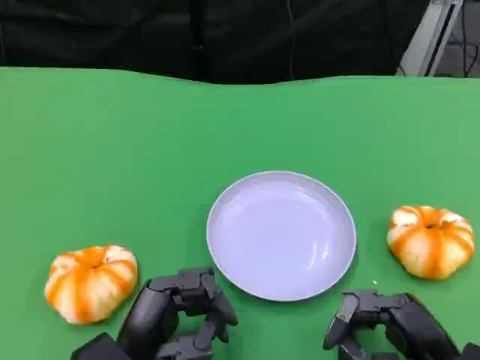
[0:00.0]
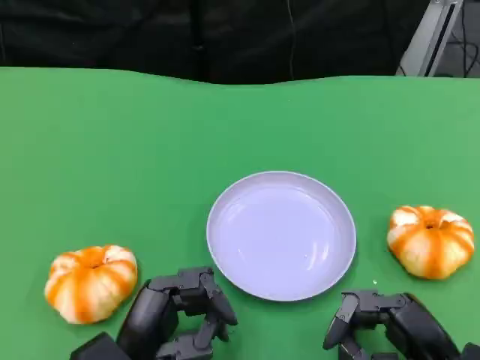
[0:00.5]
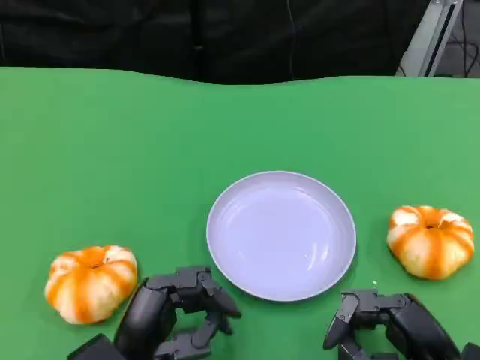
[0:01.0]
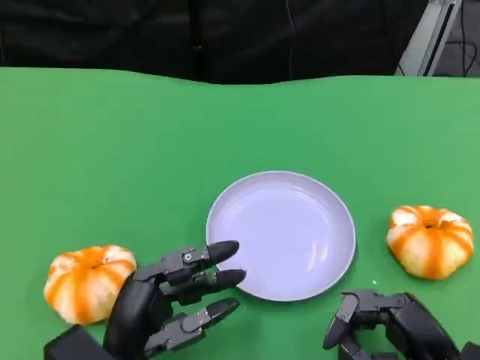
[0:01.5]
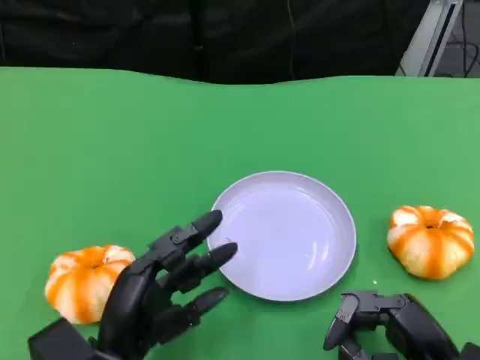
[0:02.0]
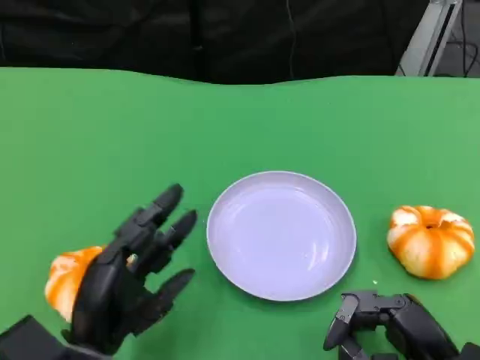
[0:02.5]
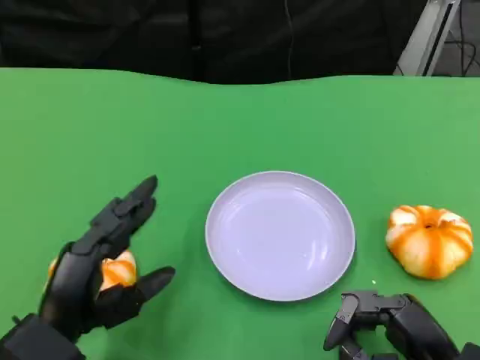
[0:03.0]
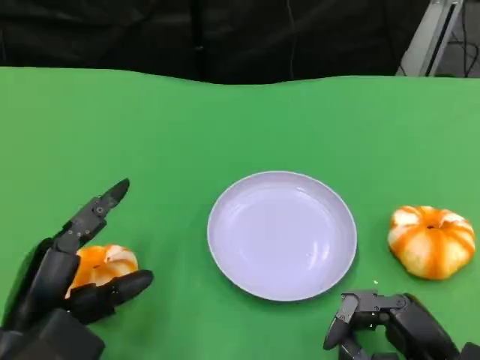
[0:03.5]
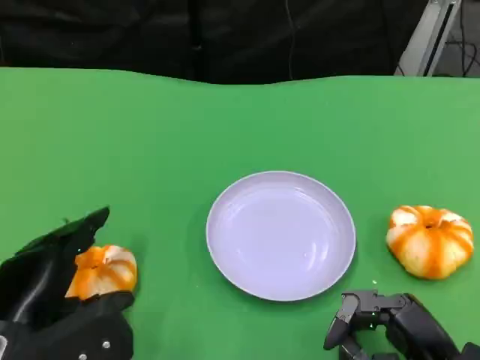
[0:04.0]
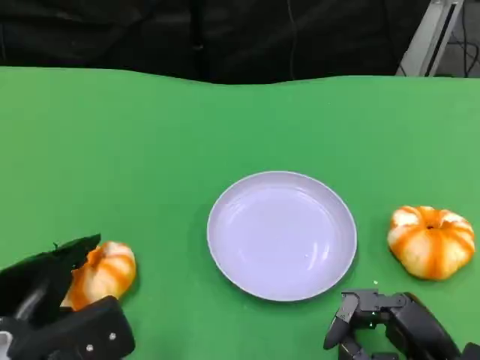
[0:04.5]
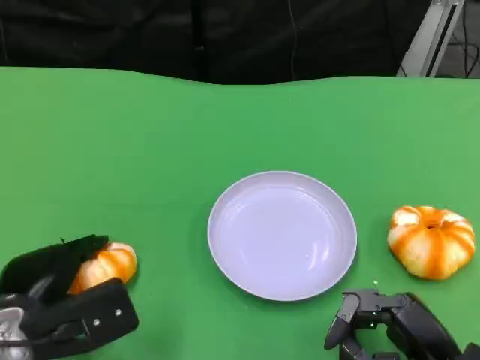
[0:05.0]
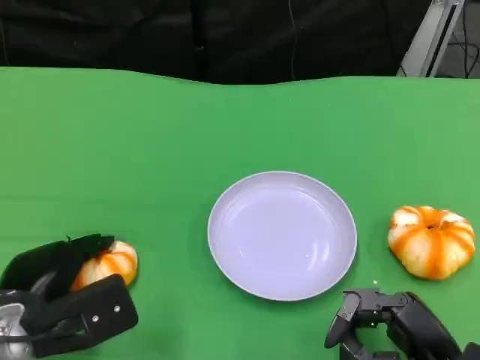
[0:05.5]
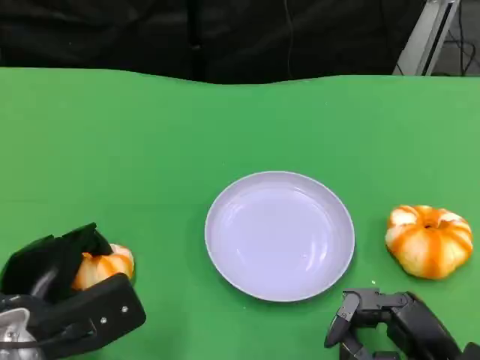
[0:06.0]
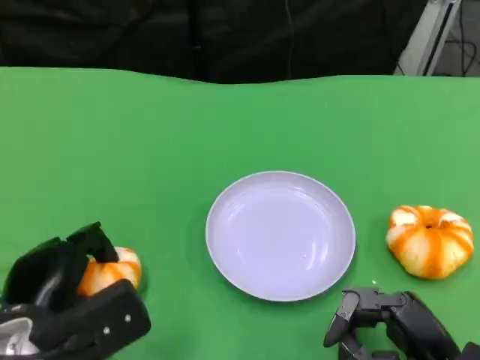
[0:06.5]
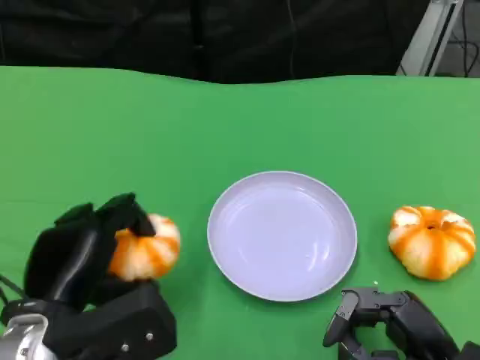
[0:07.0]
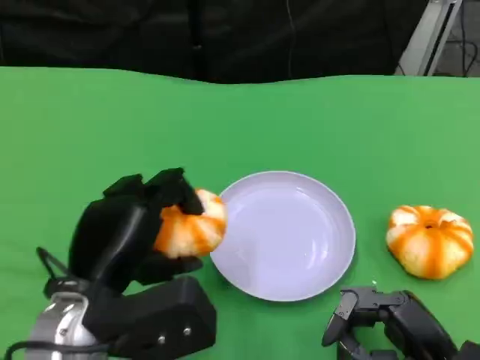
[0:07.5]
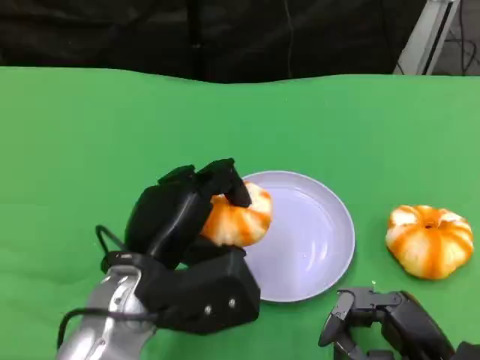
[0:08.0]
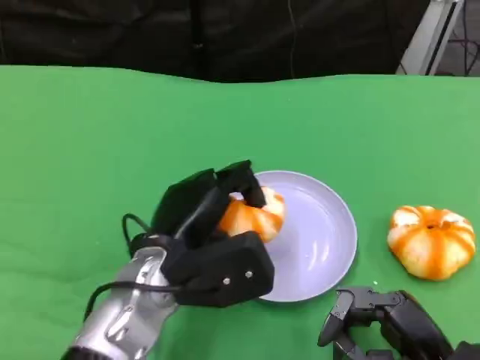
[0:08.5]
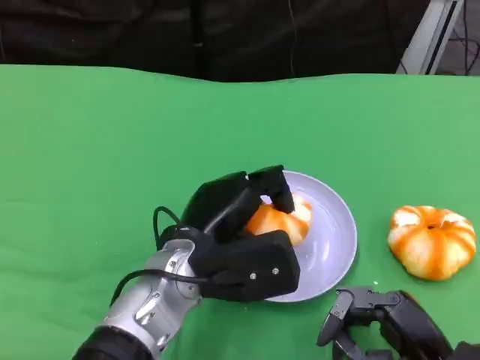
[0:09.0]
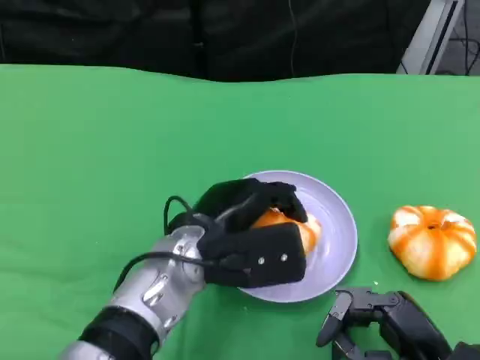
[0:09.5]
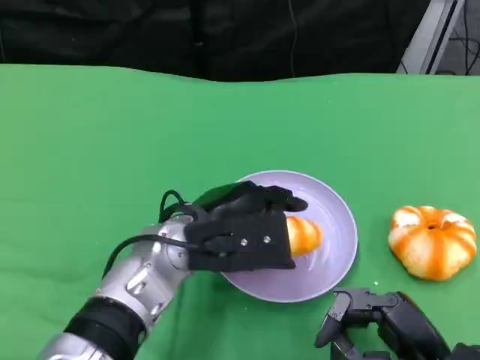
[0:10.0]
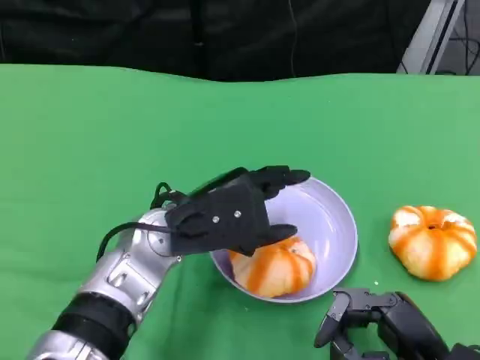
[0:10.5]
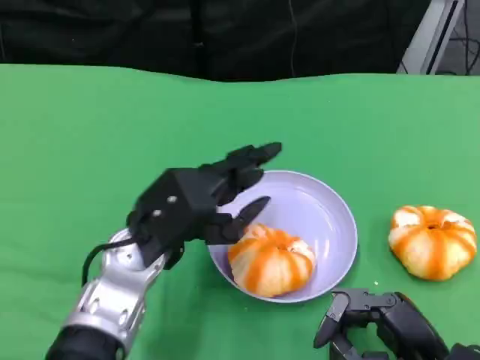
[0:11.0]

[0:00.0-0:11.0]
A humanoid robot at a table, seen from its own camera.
Task of the whole recording: Grasp the bread from the table and place it into the plate.
0:00.0 to 0:02.0: The hands move only a little.
0:02.0 to 0:03.5: The left hand heads to the left, covering roughly 5 cm.
0:05.5 to 0:07.5: The left hand heads to the right and upward, covering some 10 cm.
0:07.5 to 0:09.0: The left hand is displaced to the right and forward by about 10 cm.
0:09.0 to 0:11.0: The left hand shifts roughly 5 cm to the left.

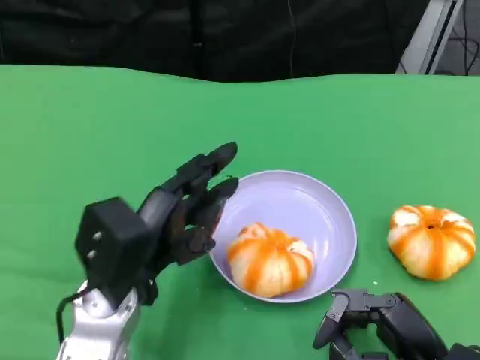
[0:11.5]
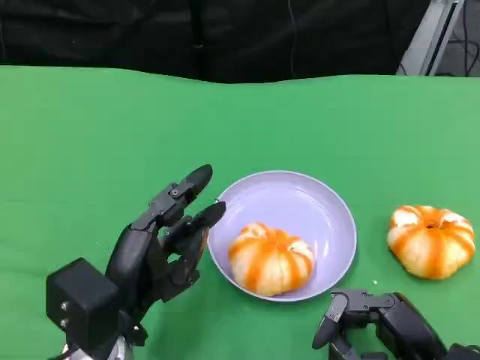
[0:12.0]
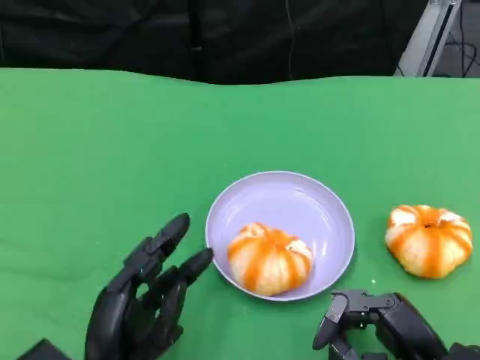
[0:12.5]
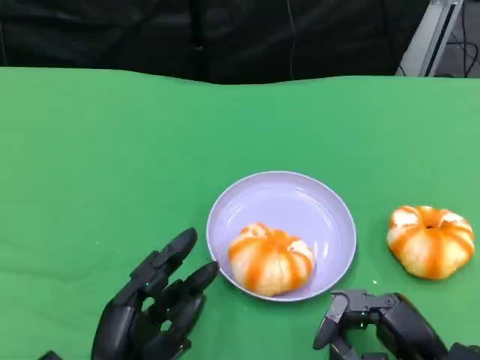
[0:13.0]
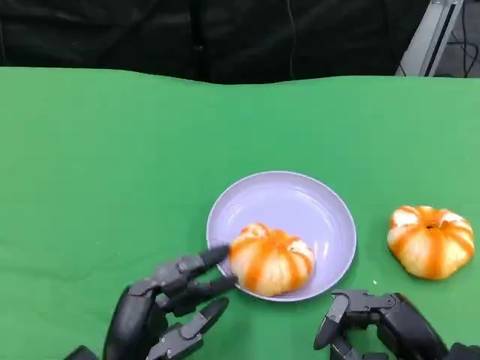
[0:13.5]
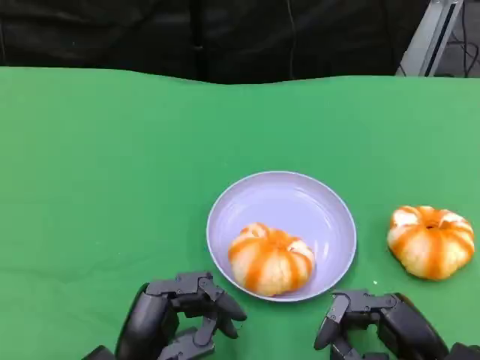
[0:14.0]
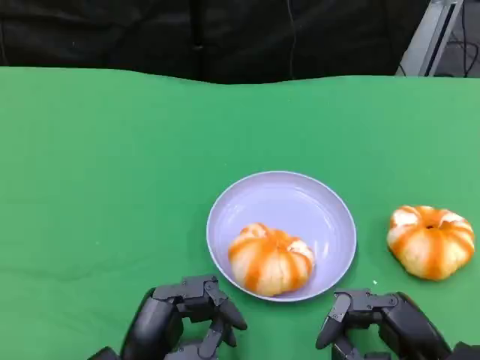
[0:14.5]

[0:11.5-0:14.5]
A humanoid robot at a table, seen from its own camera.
Task of the whole recording: Grasp the bread from the table and place it into the plate.
0:11.5 to 0:13.0: The left hand goes approximately 10 cm backward and downward.
0:13.0 to 0:14.5: The hands move only a little.

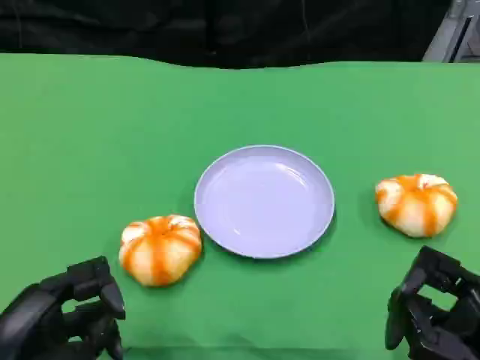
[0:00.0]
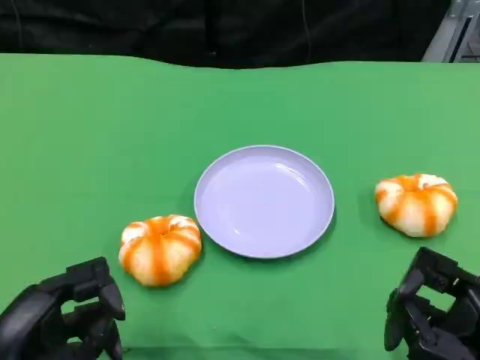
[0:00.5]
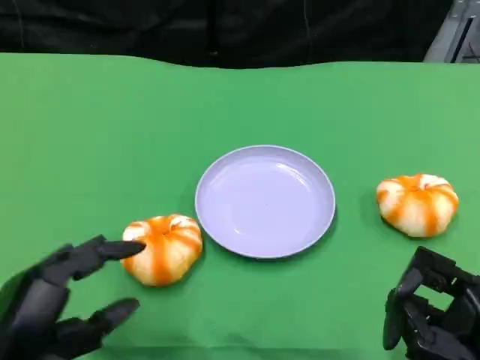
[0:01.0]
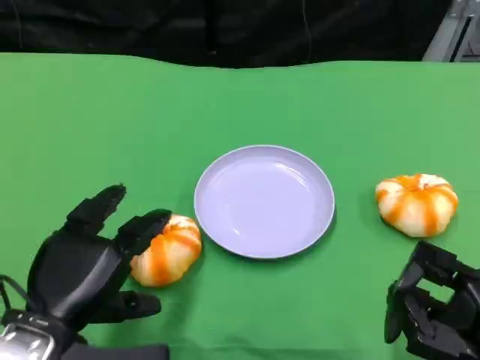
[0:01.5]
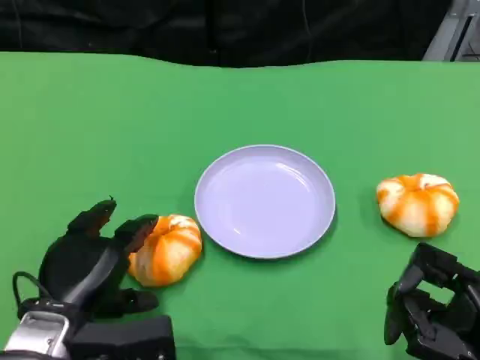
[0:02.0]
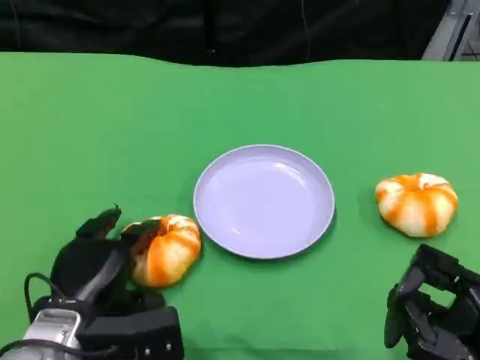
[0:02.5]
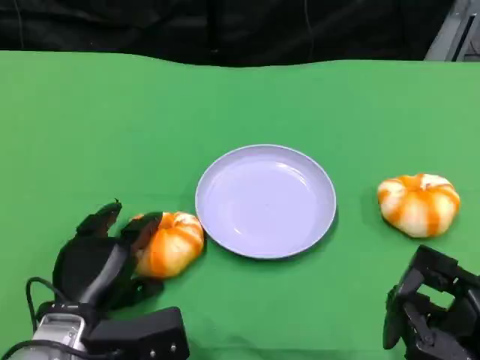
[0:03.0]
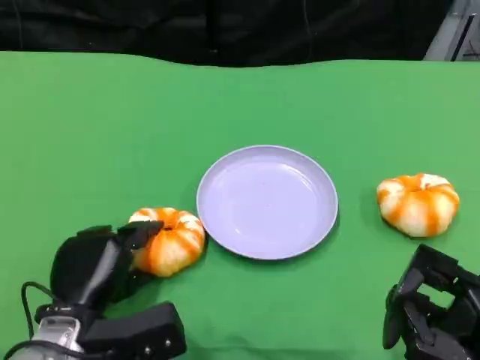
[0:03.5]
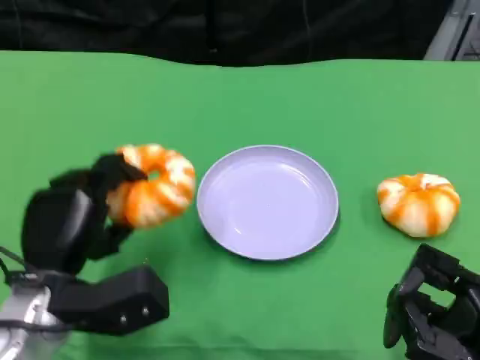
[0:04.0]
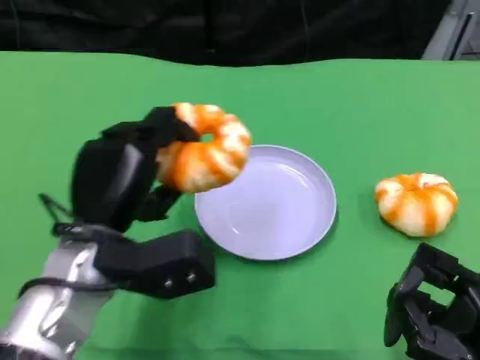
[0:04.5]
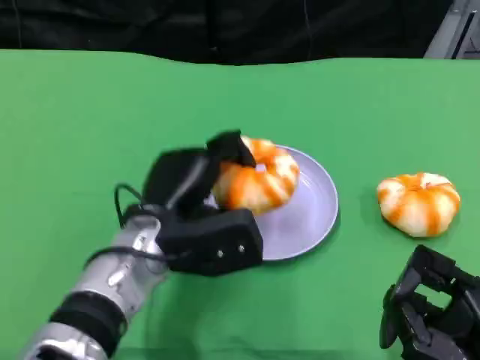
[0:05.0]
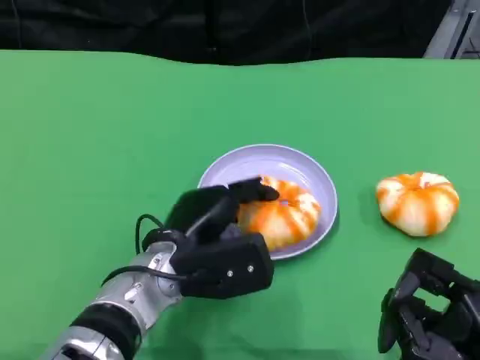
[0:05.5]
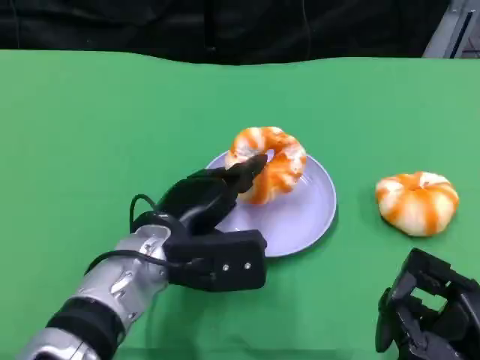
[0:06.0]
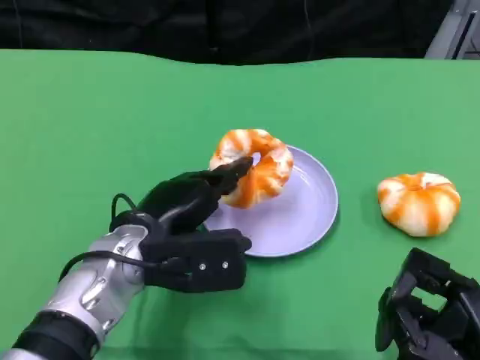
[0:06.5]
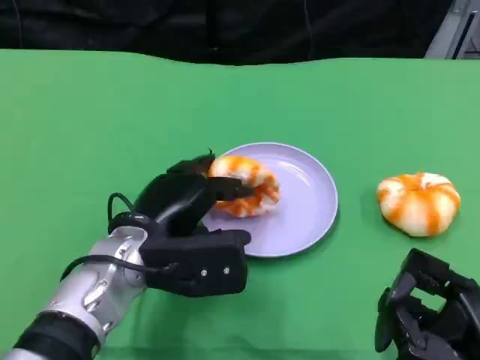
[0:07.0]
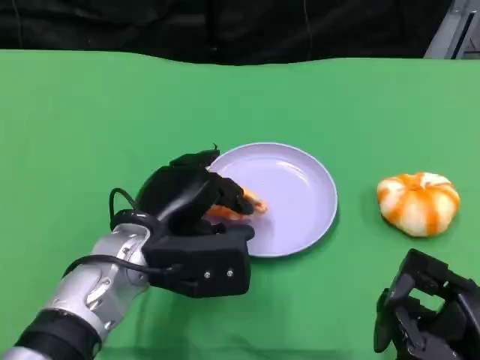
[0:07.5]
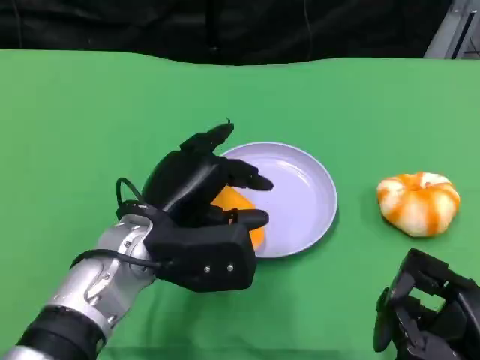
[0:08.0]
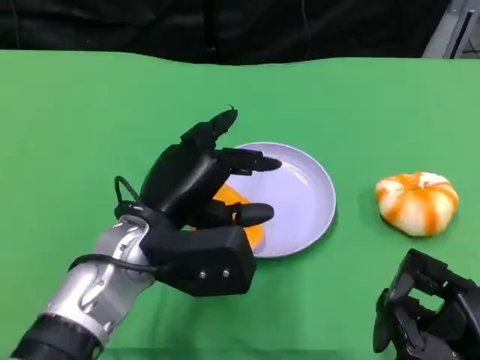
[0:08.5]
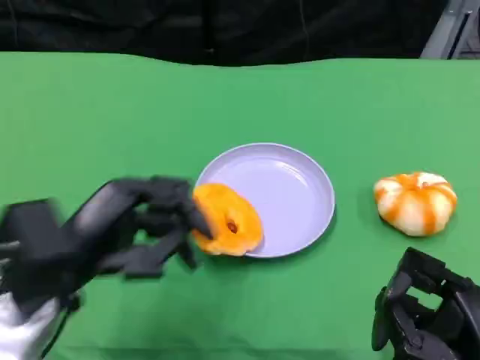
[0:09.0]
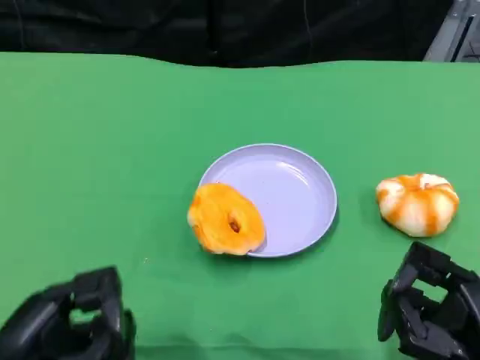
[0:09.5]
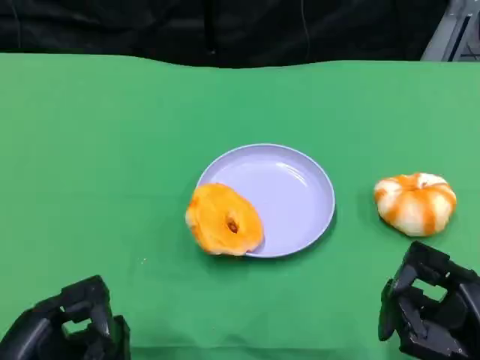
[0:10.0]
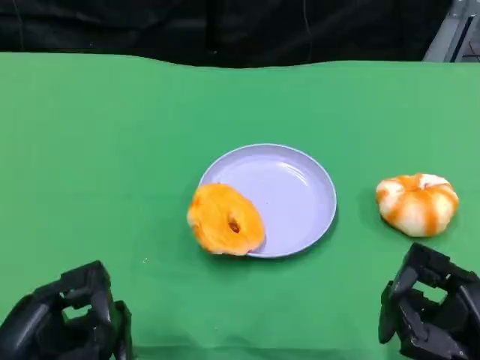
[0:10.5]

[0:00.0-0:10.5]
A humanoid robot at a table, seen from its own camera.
Task of the whole recording: Grasp the bread from the table and place it into the plate.
0:00.0 to 0:02.0: The left hand goes some 10 cm forward and to the right.
0:04.0 to 0:06.5: The left hand heads to the right, covering approximately 10 cm.
0:08.5 to 0:10.5: The left hand moves backward and to the left, roughly 20 cm.

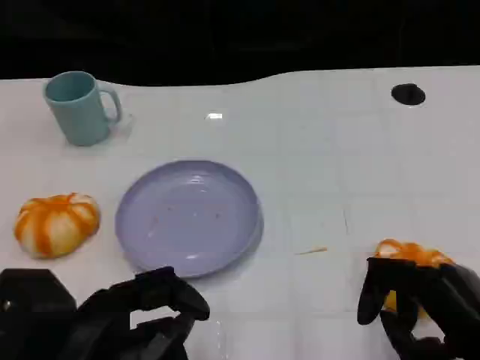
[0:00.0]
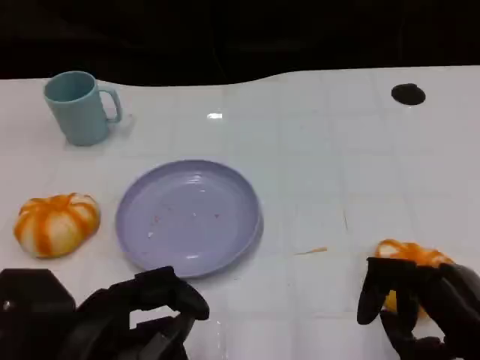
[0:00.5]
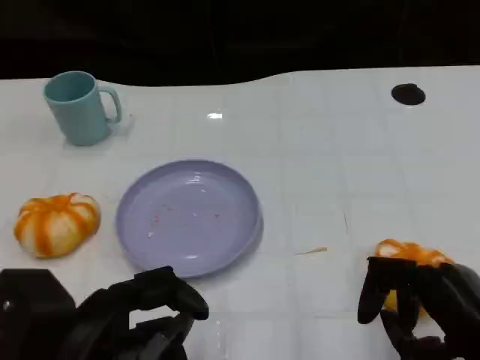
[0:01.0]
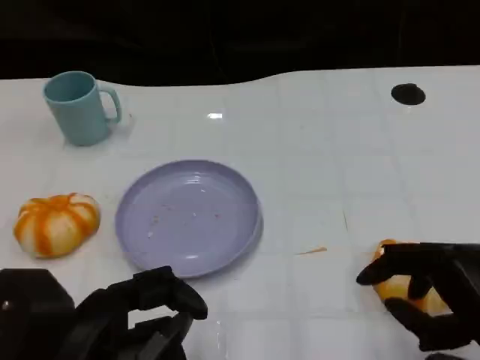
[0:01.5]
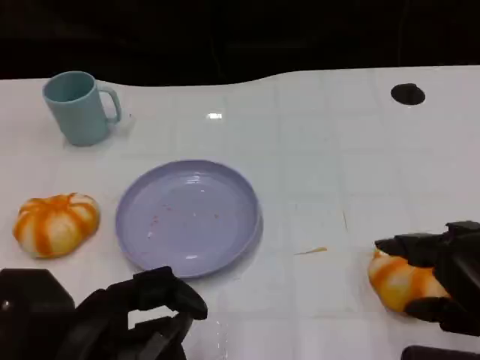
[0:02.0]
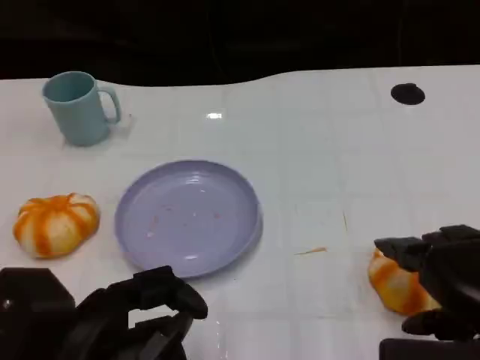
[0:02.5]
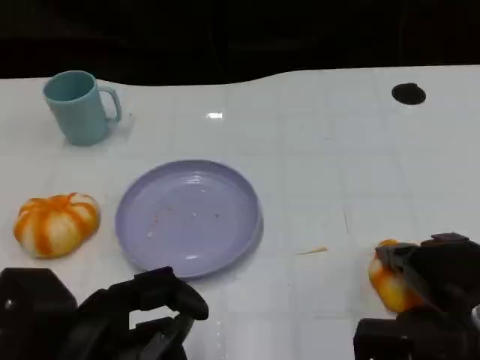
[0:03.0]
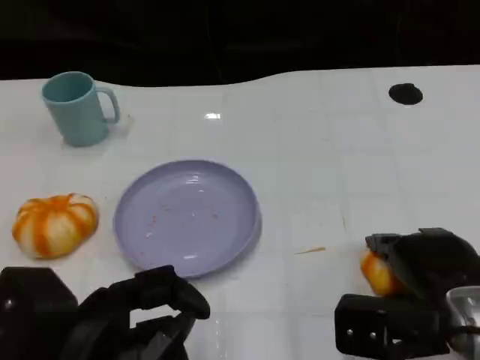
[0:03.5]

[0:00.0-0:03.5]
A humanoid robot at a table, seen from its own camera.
Task of the whole recording: Grasp the bread from the table and place it into the plate.
0:00.0 to 0:02.0: The right hand goes approximately 5 cm upward.
0:02.0 to 0:03.5: The right hand heads downward and forward, covering roughly 10 cm.
